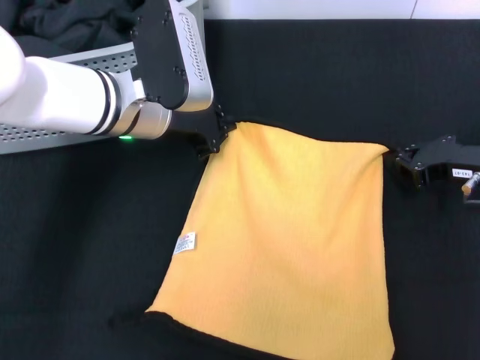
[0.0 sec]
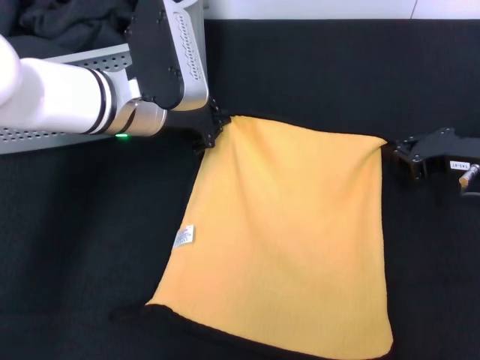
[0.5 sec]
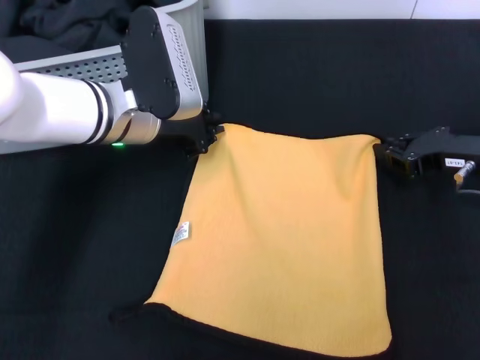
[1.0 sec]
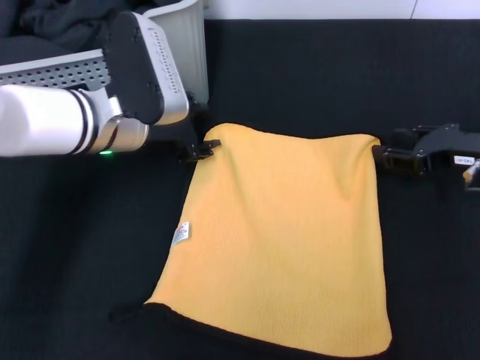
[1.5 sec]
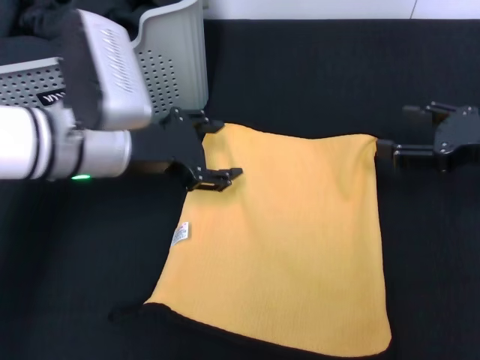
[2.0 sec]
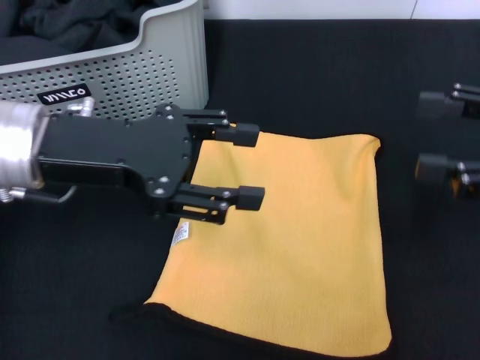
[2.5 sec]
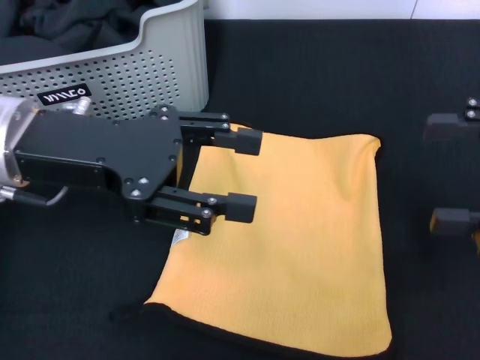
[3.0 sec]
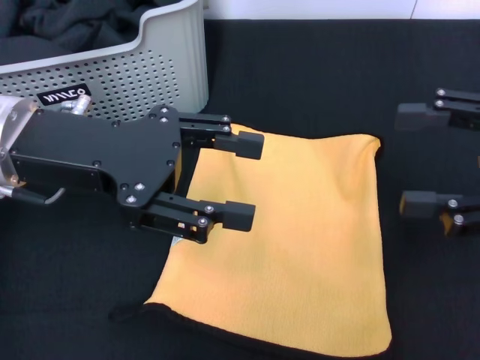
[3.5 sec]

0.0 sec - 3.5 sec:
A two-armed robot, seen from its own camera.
Task of the whole recording: pick up the towel from the storage box and lay it flat on the black tablecloth.
0.0 sec - 2.0 sec: The left gripper shifts about 5 cm backward, and opens, while the right gripper moves approximately 5 cm, and opens up.
2.0 sec - 3.5 sec: The left gripper travels upward by some 5 cm. Meanwhile the right gripper shifts approximately 10 cm upward and backward.
